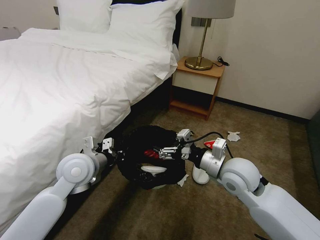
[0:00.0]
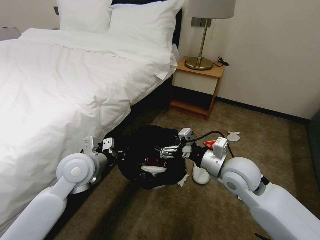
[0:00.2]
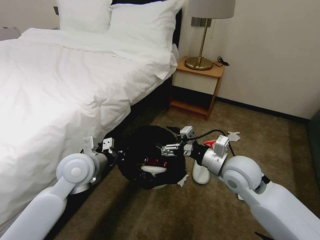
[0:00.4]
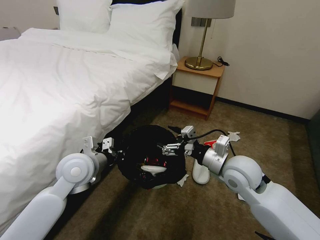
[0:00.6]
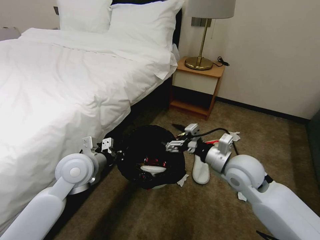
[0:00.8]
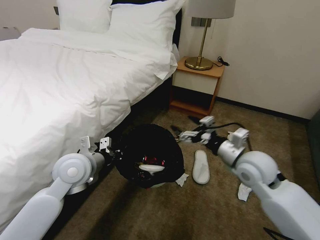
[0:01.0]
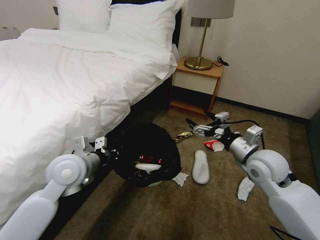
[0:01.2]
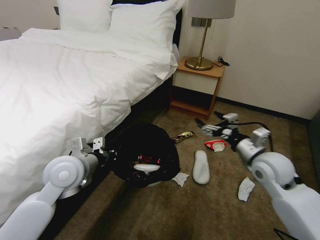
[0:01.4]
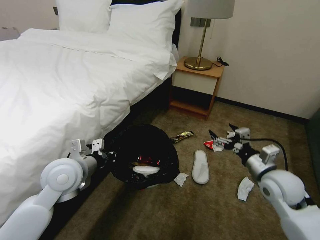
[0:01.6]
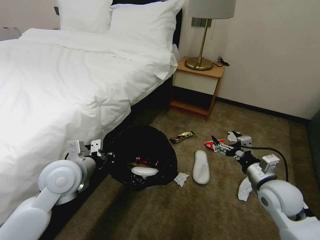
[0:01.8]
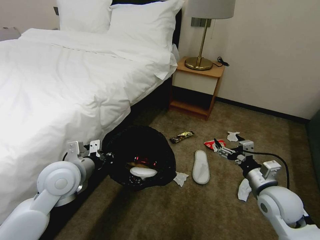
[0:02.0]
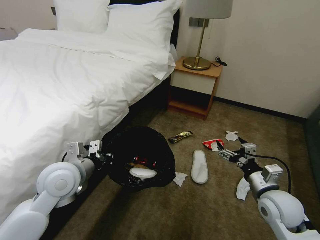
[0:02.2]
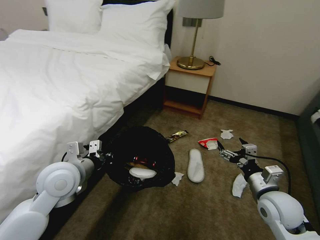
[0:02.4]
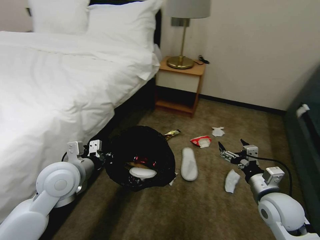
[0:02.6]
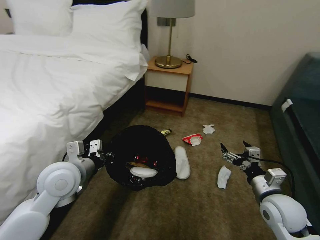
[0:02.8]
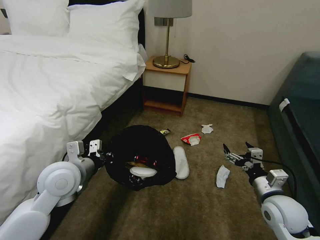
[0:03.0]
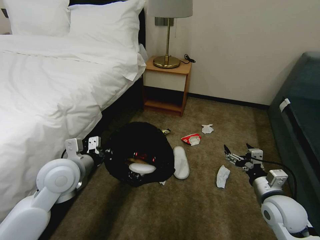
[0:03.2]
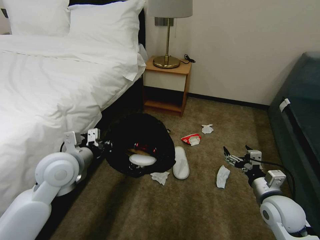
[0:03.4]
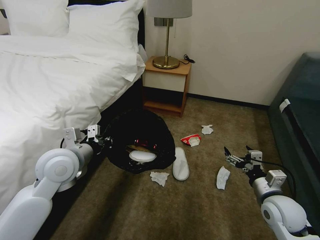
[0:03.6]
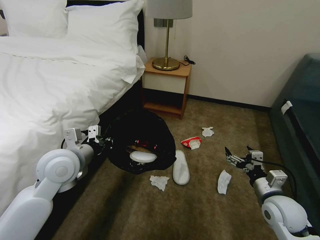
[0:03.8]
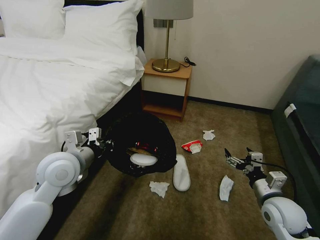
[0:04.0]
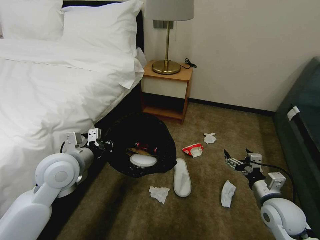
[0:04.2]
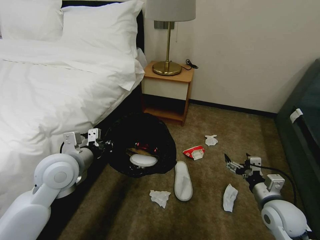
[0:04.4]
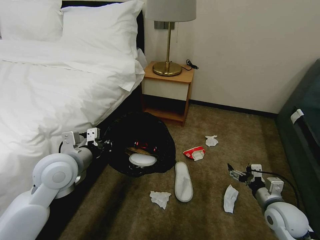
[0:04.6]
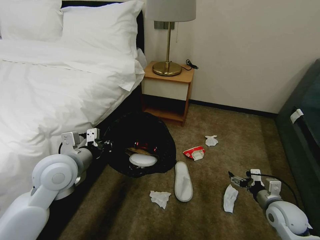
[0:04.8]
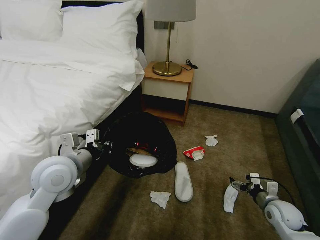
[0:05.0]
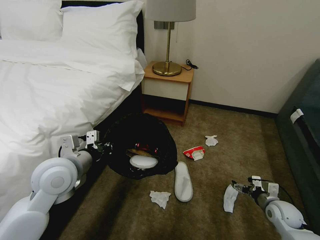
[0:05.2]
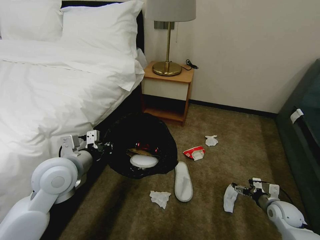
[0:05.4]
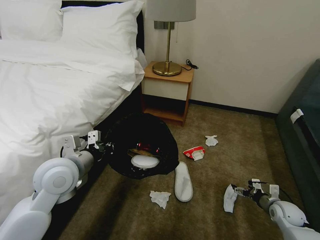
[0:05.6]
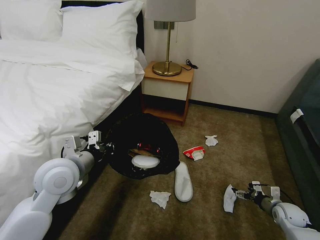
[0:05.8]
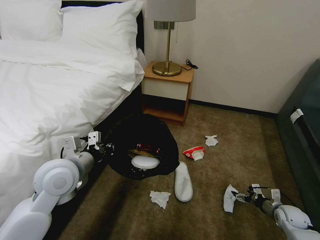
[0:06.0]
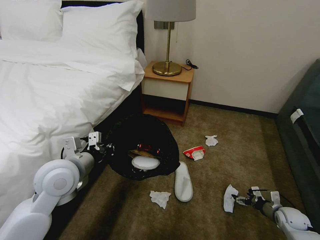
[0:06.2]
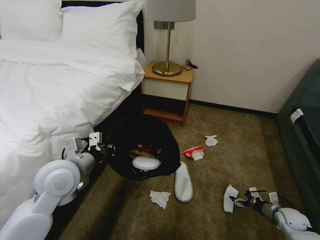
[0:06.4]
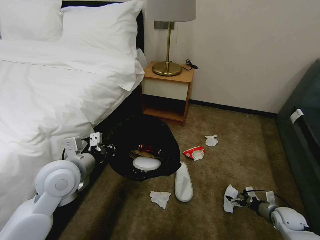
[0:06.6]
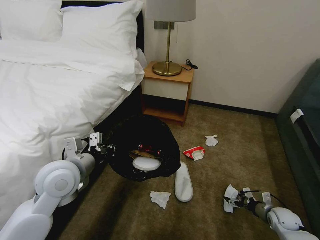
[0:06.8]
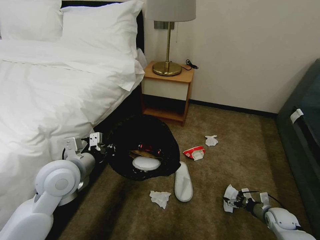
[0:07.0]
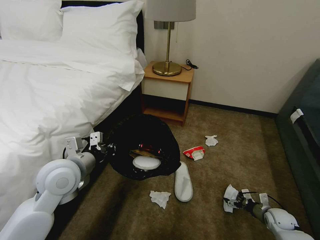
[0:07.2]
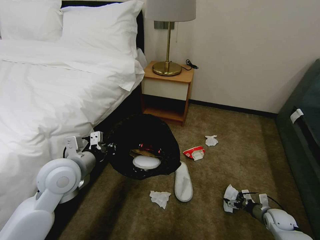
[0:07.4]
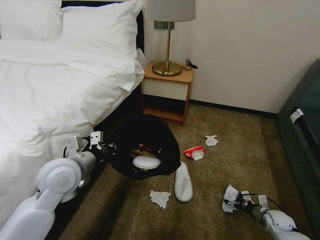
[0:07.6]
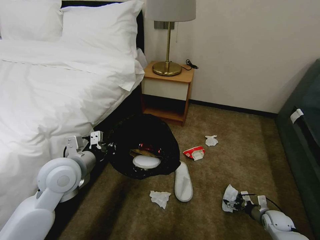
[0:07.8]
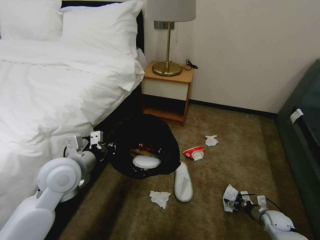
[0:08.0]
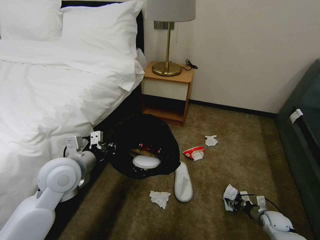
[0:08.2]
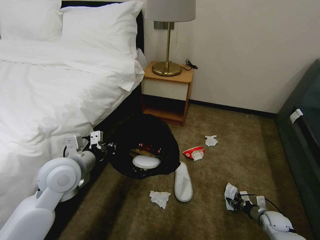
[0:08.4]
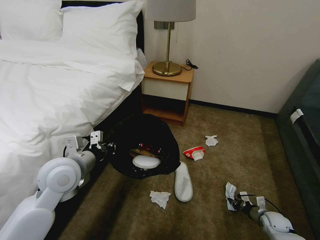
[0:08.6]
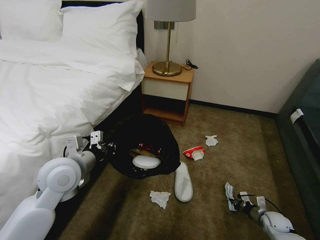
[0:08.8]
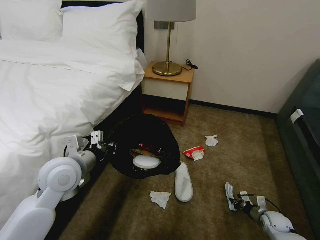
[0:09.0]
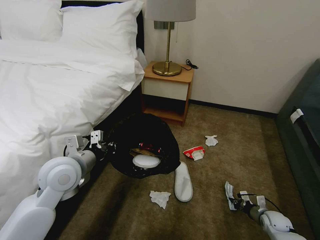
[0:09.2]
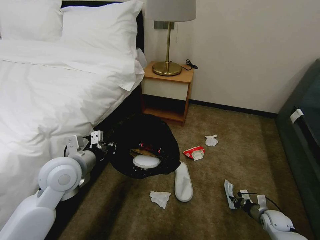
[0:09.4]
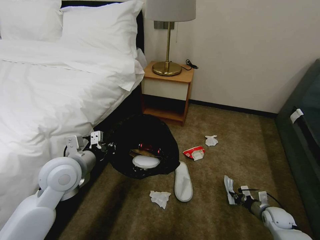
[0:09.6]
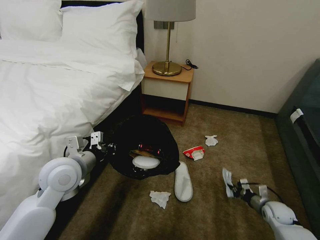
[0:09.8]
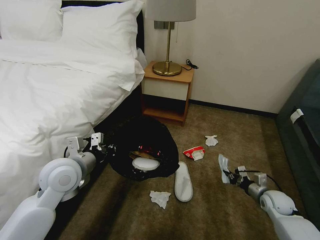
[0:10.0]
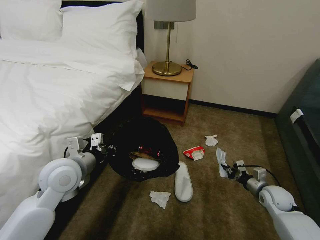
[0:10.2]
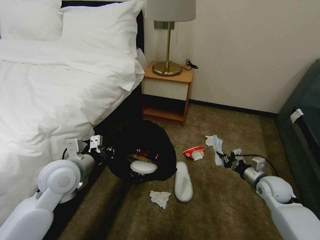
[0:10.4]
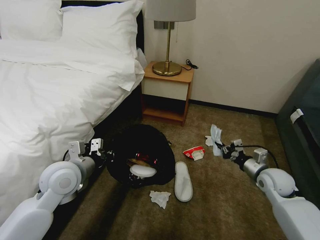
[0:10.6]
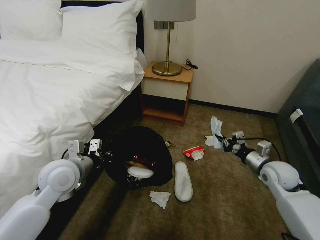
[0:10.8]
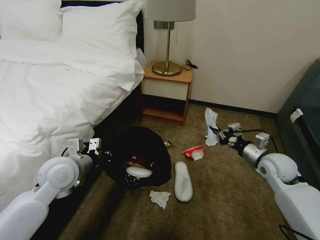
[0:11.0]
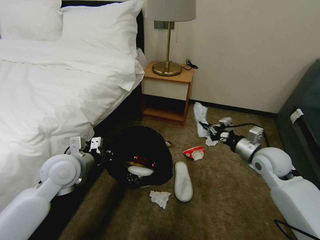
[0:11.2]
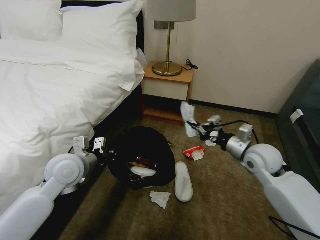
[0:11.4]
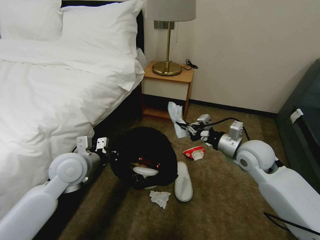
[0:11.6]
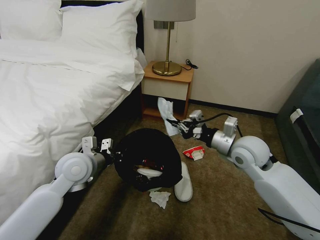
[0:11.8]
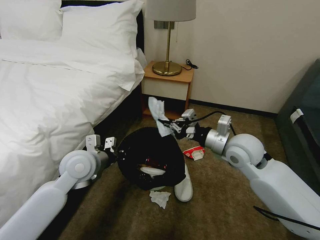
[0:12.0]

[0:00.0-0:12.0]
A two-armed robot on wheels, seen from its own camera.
Task of the whole recording: Pick up the trash bin, then pick up the garbage on the floor and place it into the trash bin.
0:00.0 to 0:01.6: The right gripper shifts approximately 15 cm to the right.
0:01.6 to 0:03.0: The right gripper moves backward, some 5 cm.
0:04.4 to 0:06.0: The right gripper moves downward and to the right, about 20 cm.
0:06.0 to 0:07.6: The right gripper changes place by roughly 5 cm.
0:07.6 to 0:09.0: The right gripper closes its fingers.
0:09.0 to 0:10.4: The right gripper goes roughly 20 cm upward and forward.
0:10.4 to 0:12.0: The left gripper shifts by some 5 cm; the right gripper shifts about 25 cm upward and to the left.

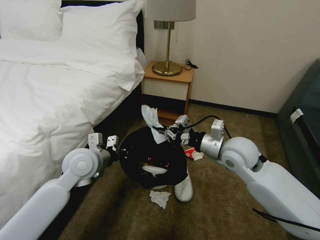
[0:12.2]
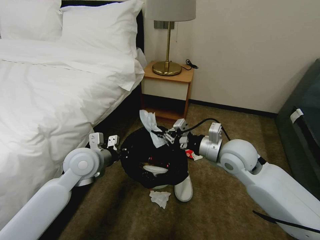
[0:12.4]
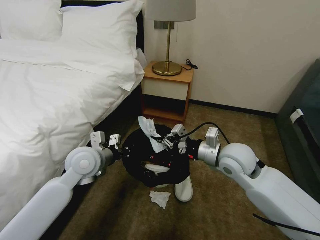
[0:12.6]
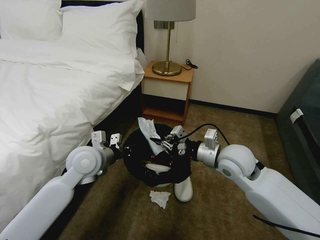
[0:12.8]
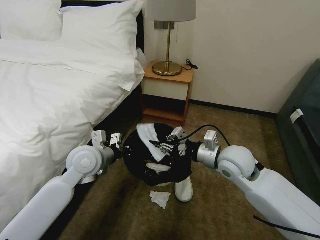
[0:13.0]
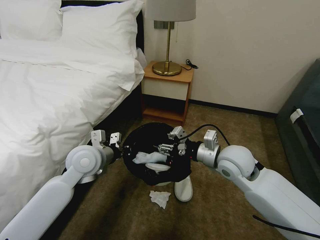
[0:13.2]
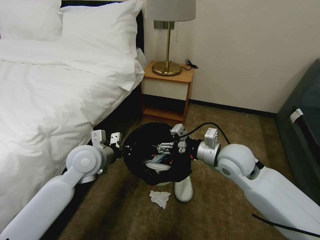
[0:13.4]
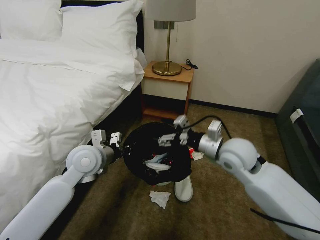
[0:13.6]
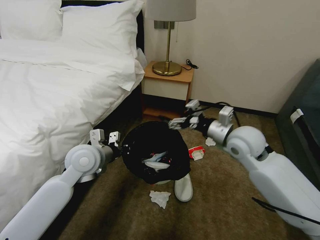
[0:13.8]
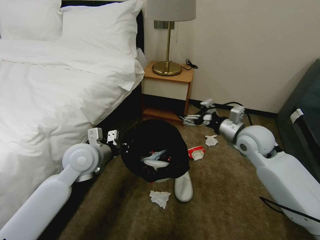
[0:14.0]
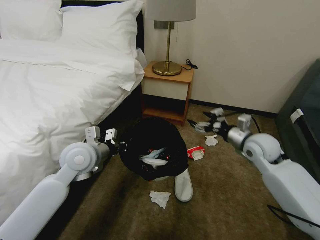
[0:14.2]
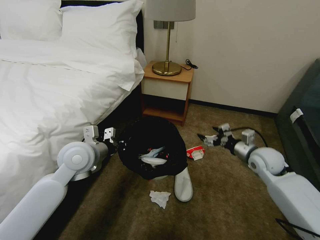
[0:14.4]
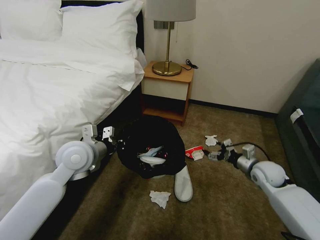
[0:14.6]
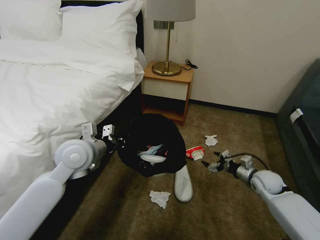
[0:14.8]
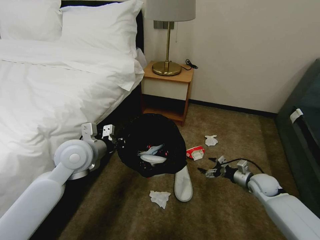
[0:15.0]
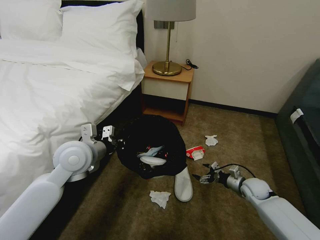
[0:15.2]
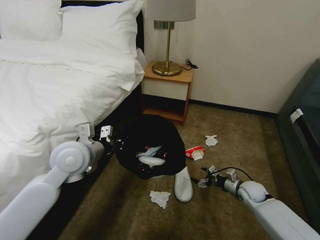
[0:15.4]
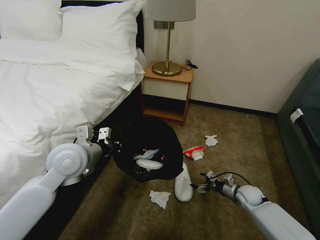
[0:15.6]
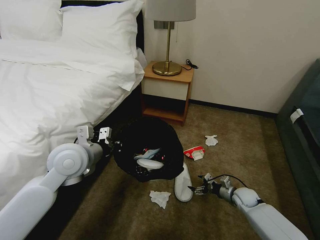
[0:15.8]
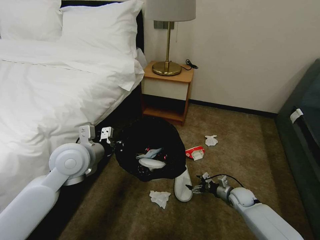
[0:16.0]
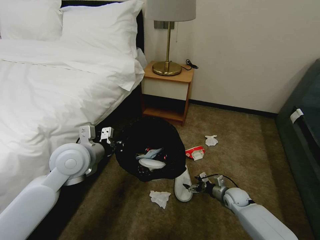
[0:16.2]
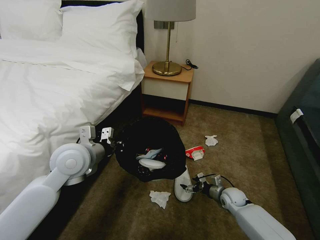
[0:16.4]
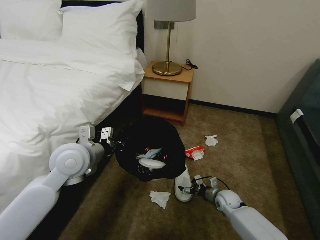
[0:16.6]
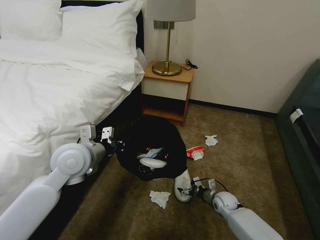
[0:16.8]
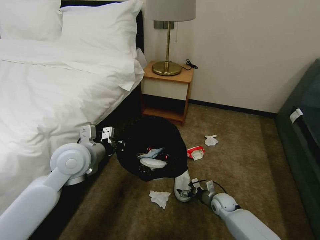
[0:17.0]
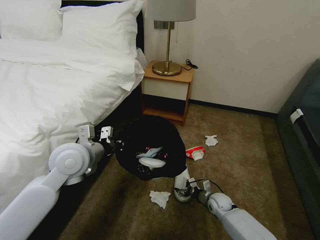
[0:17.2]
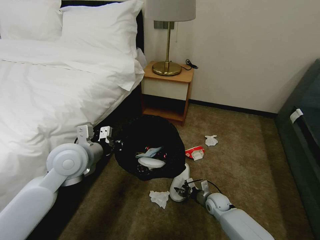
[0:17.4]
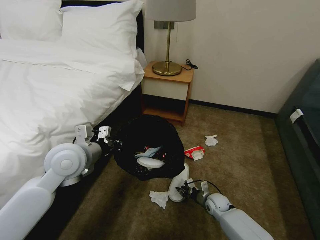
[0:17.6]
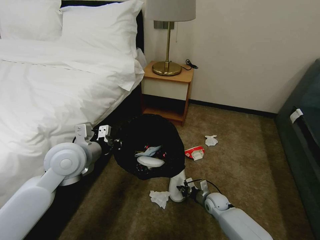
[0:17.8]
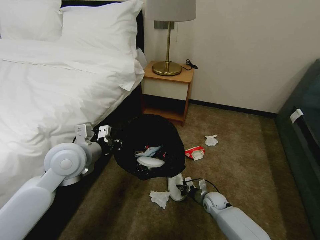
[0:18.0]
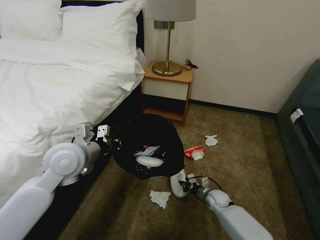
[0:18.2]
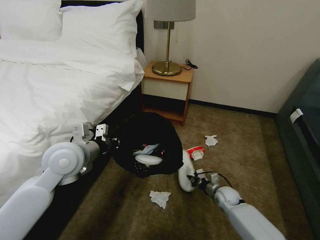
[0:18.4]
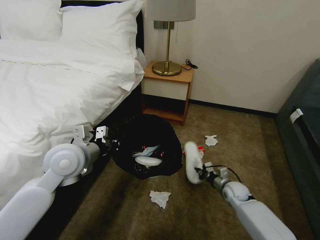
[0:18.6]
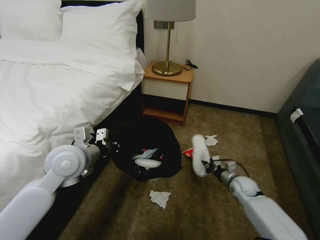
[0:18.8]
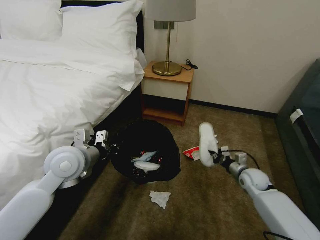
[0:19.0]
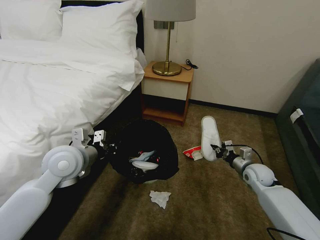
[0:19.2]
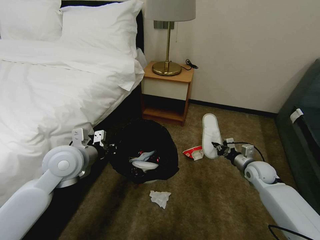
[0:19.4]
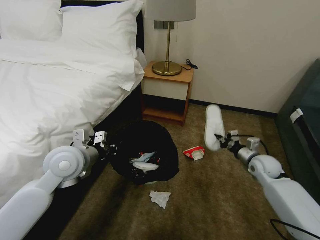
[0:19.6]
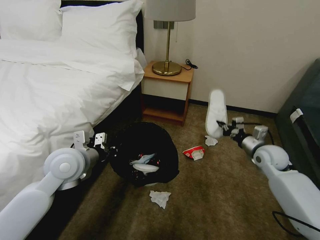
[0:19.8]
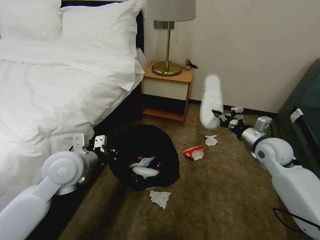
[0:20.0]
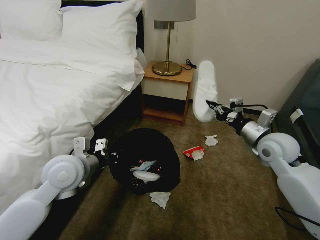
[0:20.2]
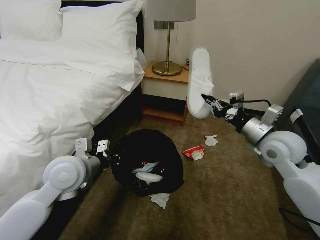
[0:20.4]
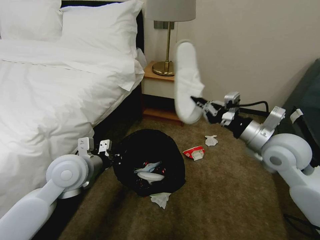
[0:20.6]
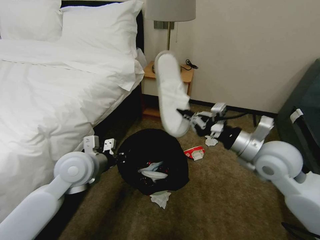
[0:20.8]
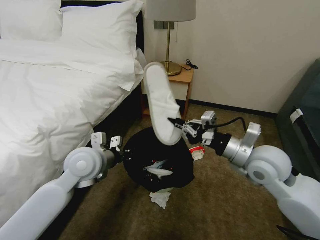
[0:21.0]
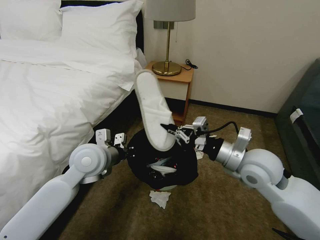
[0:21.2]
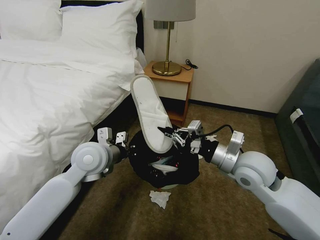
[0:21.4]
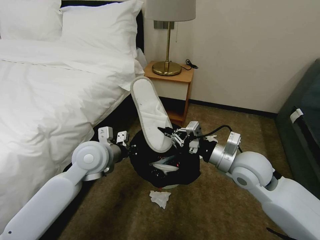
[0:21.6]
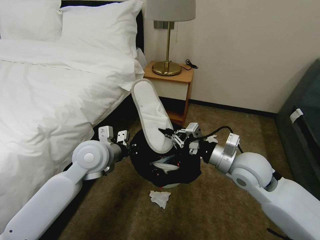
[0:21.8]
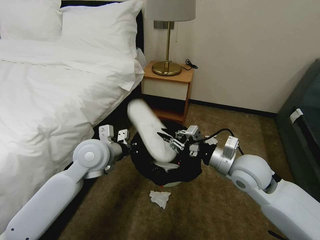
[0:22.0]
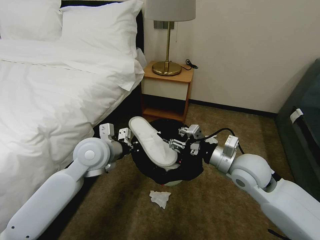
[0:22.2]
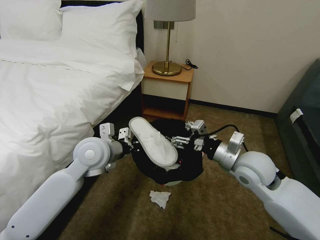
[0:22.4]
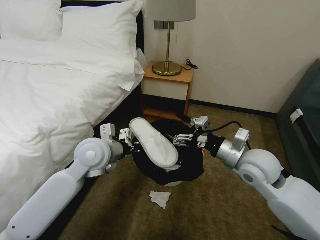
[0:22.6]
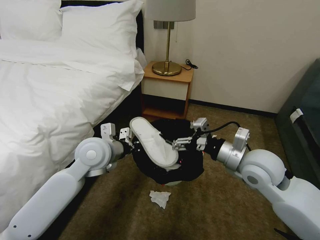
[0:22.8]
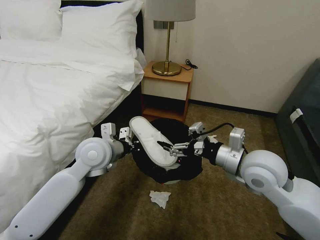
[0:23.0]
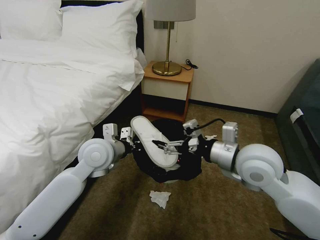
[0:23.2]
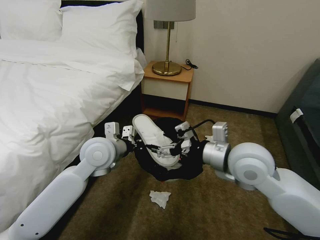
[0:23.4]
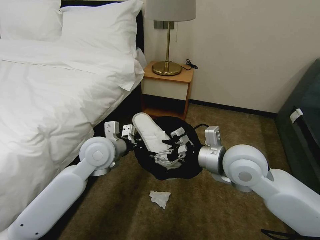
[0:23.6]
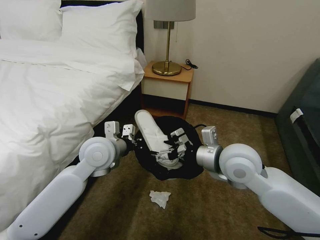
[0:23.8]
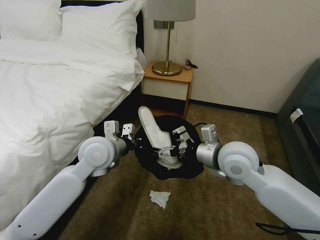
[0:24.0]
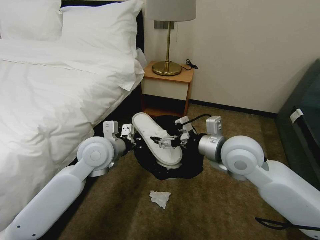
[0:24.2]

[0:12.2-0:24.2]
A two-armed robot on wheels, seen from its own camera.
Task of the whole recording: Pick up the trash bin, then pick up the garbage on the floor and place it into the trash bin.
0:12.2 to 0:13.8: The right gripper opens up.
0:13.8 to 0:15.2: The right gripper heads downward and to the right, covering about 30 cm.
0:15.2 to 0:16.6: The right gripper moves to the left and downward, roughly 10 cm.
0:16.6 to 0:18.2: The right gripper closes its fingers.
0:18.2 to 0:19.8: The right gripper moves upward and to the right, roughly 30 cm.
0:19.8 to 0:21.2: The left gripper is displaced to the right by about 5 cm. Meanwhile the right gripper travels to the left, upward and backward by about 20 cm.
0:21.2 to 0:22.6: The right gripper opens.
0:22.6 to 0:24.2: The right gripper travels to the left by approximately 5 cm.
